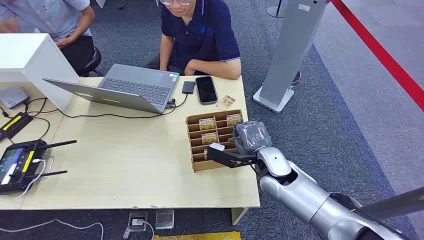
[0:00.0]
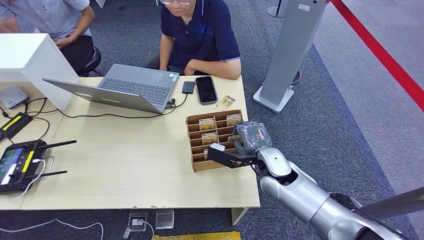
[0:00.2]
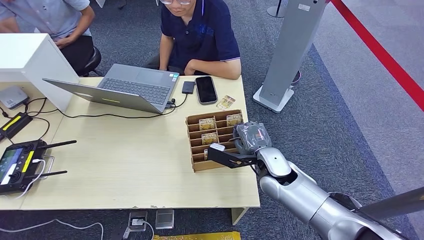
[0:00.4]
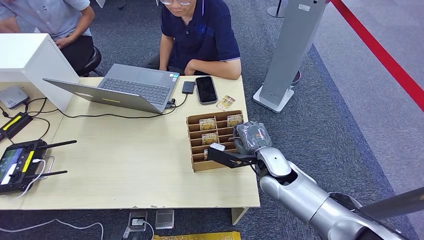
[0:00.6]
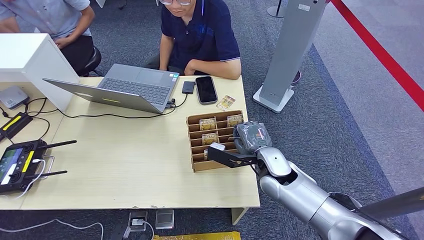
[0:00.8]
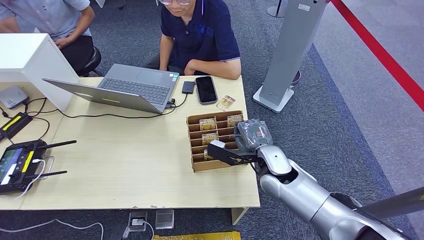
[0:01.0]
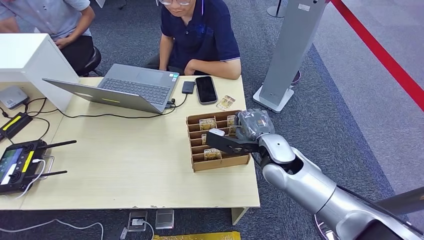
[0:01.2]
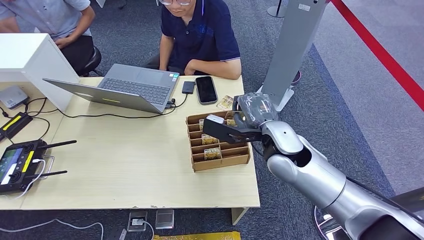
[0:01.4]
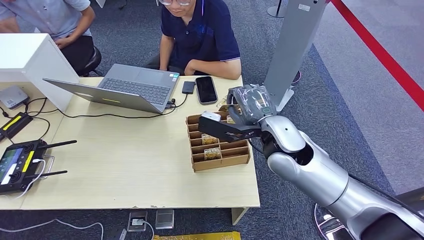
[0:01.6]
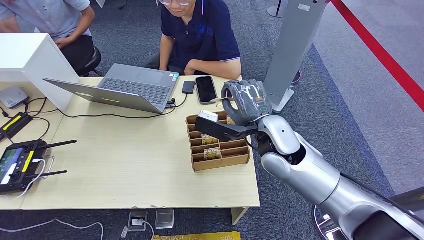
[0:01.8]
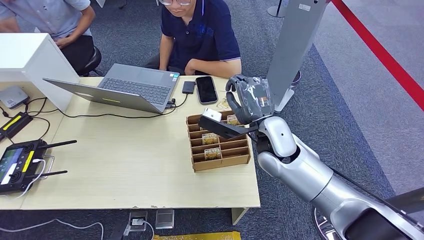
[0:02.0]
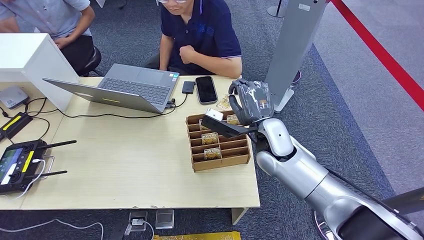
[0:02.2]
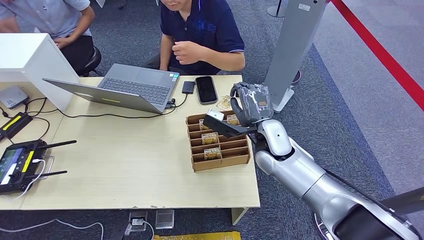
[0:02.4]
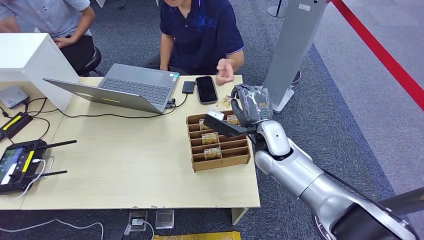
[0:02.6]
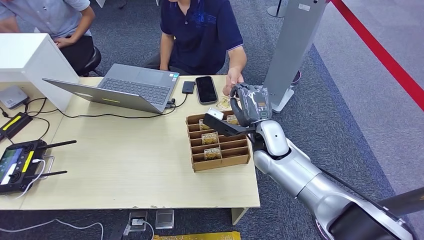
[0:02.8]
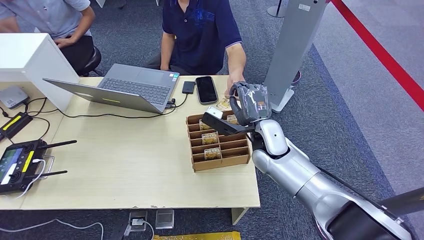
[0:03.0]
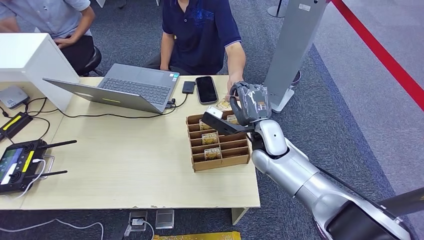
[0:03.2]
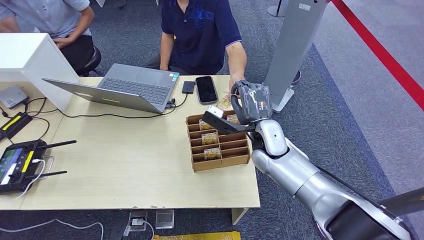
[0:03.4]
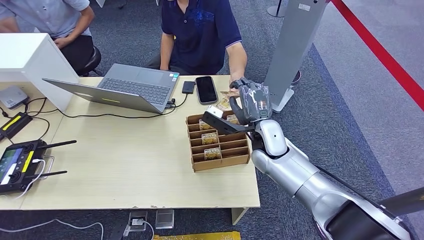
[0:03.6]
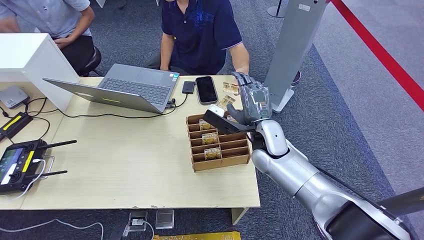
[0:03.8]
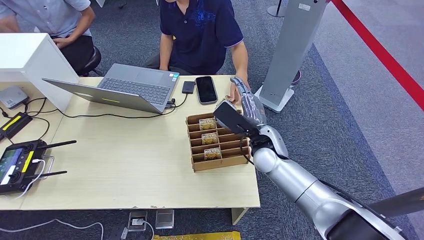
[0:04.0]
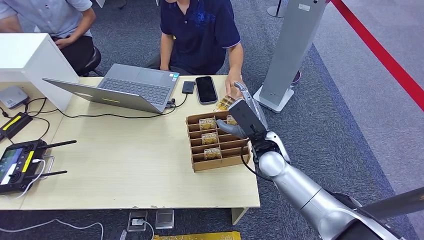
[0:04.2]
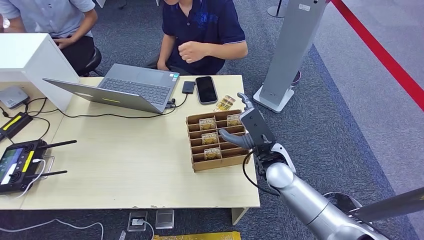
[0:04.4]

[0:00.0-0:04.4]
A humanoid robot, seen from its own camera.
Step, 0:00.0 to 0:01.4: Pick up the room card from the card holder.
Step, 0:02.2 to 0:04.4: Hand the room card to the target.
0:01.4 to 0:03.0: The right hand travels downward by approximately 5 cm.
0:03.0 to 0:04.4: The right hand shifts approximately 5 cm backward.

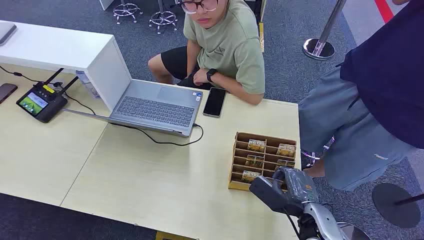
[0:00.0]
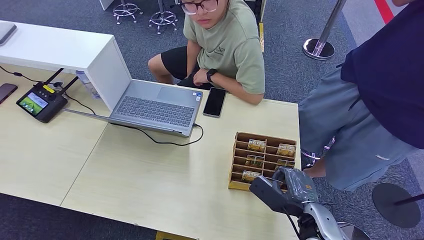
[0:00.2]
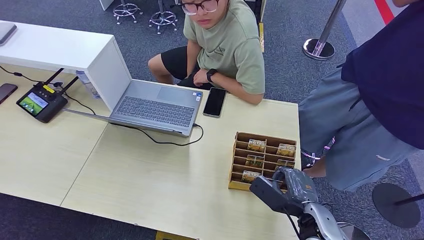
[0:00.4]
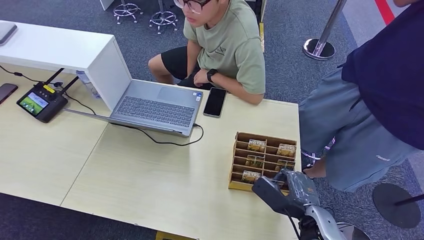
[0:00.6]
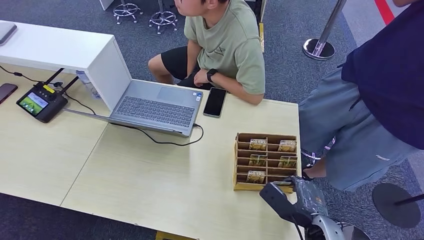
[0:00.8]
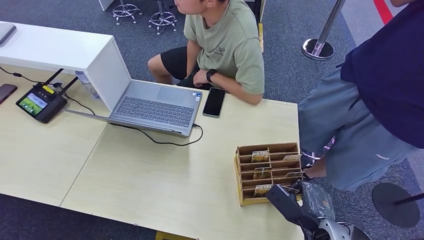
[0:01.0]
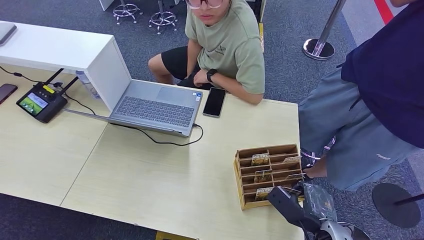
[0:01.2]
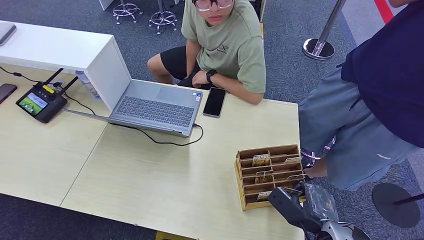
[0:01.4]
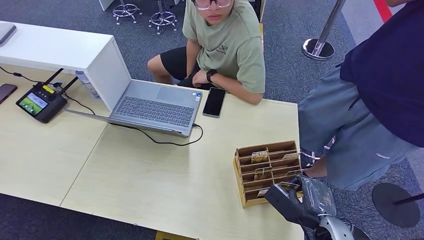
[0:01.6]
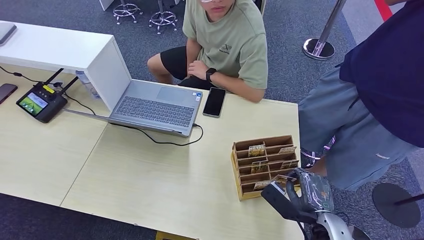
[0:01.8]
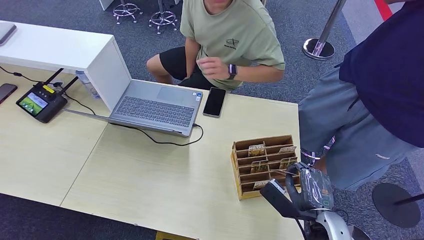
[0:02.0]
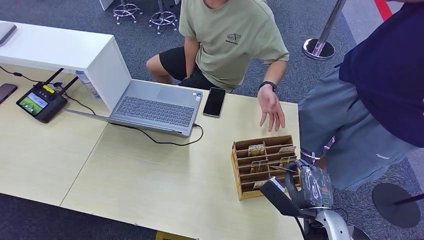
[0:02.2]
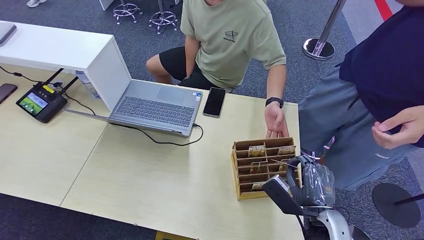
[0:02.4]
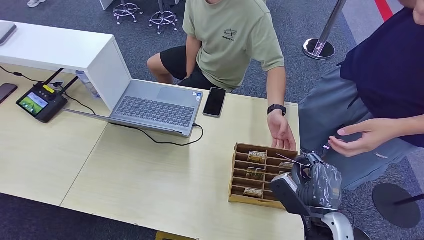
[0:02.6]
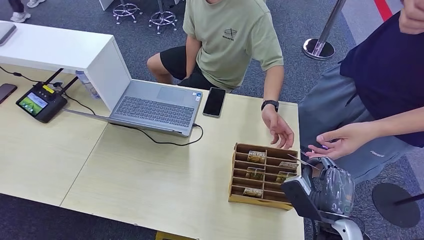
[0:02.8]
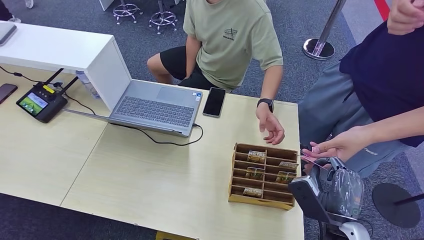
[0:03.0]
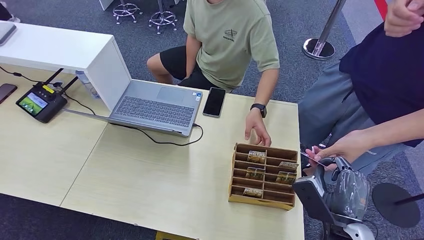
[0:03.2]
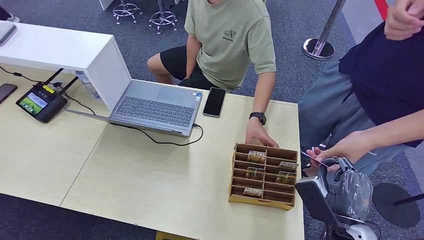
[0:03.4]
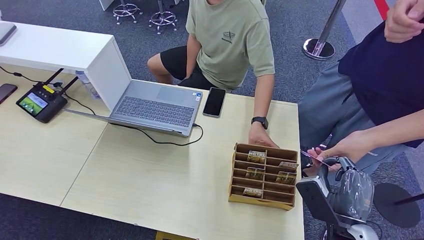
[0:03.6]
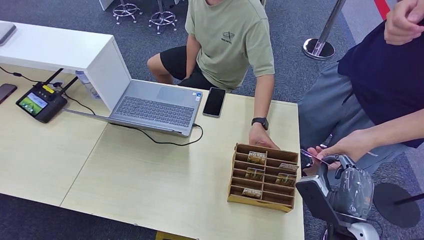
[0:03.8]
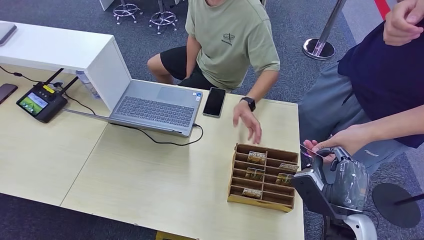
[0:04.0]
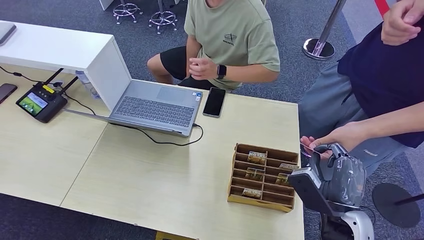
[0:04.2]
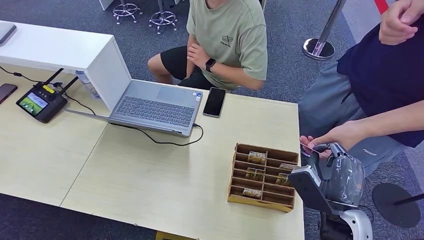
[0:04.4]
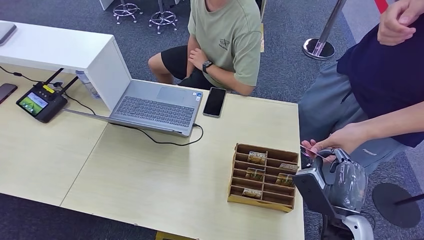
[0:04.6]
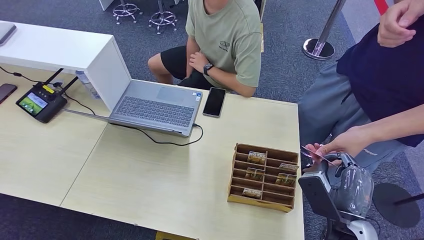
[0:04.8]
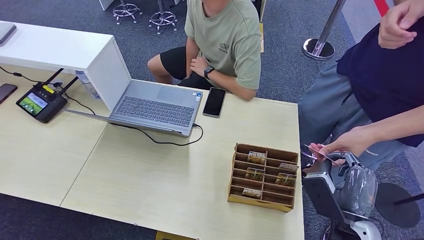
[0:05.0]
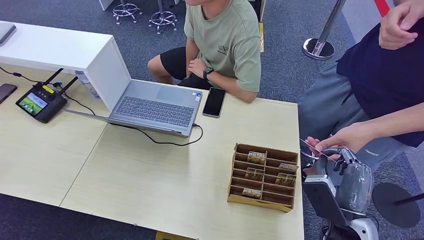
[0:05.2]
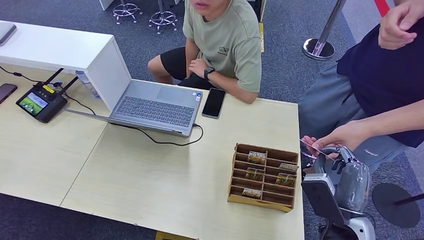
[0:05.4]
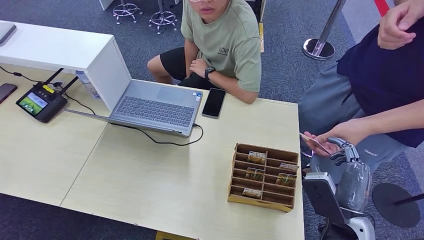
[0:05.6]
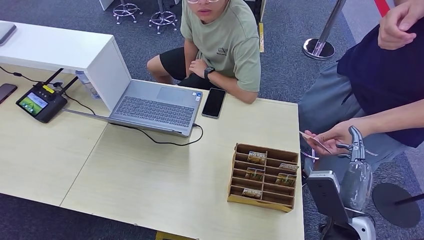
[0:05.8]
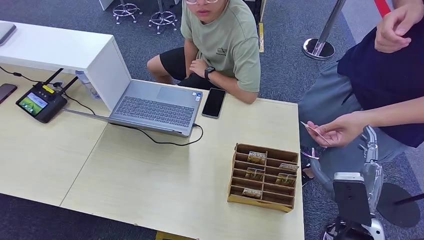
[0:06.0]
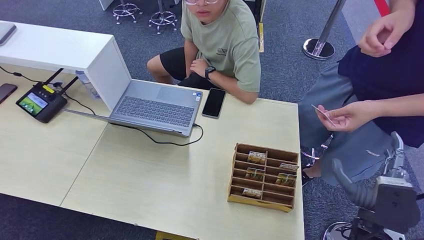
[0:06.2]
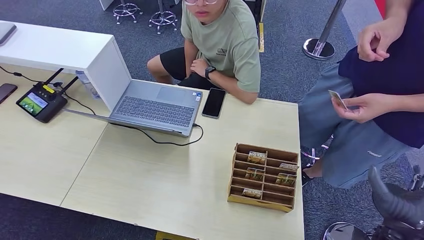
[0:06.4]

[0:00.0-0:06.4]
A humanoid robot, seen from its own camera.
Step, 0:00.0 to 0:02.4: Pick up the room card from the card holder.
Step, 0:02.6 to 0:06.4: Hand the room card to the target.
0:03.2 to 0:04.8: There are only small adjustments of the hands.
0:04.8 to 0:06.4: The right hand heads to the right, covering approximately 10 cm.
